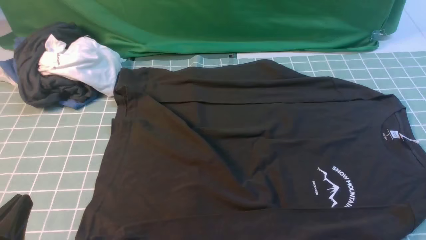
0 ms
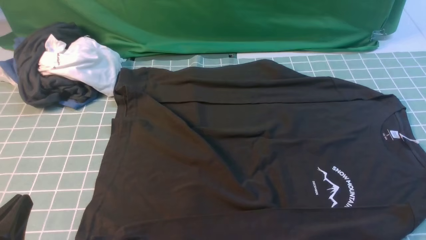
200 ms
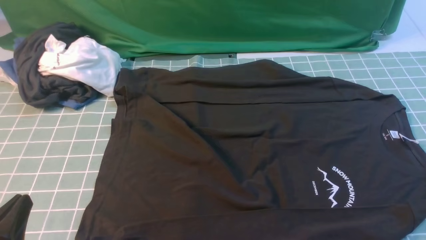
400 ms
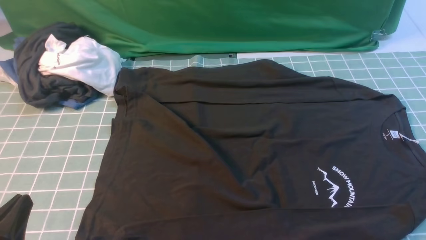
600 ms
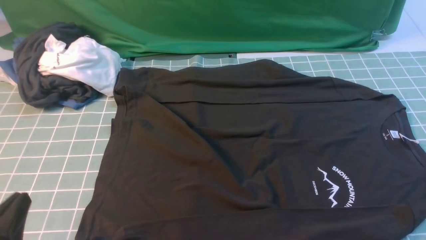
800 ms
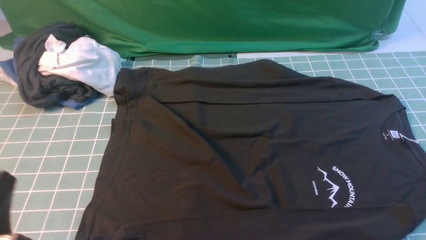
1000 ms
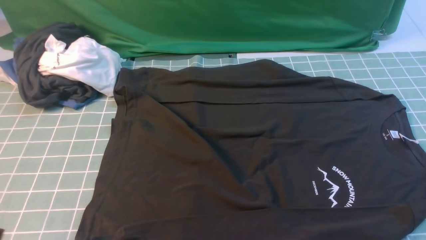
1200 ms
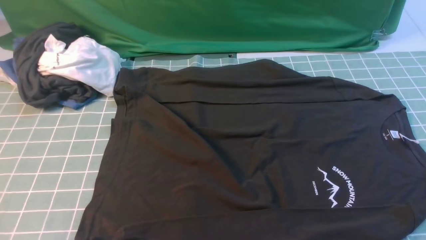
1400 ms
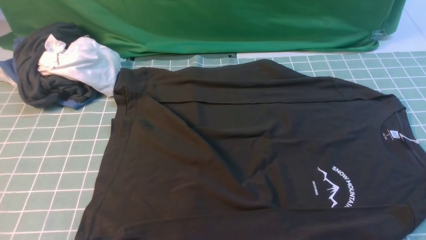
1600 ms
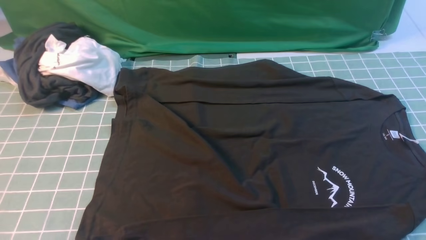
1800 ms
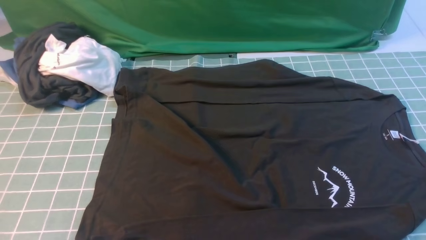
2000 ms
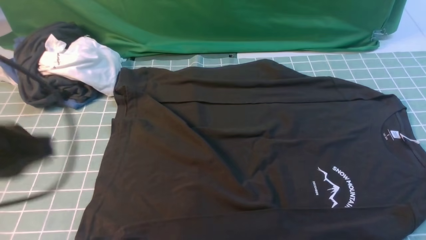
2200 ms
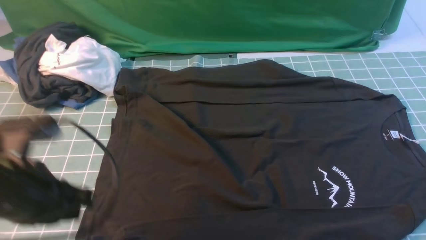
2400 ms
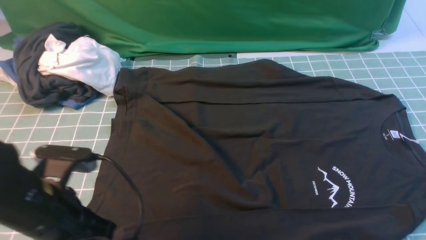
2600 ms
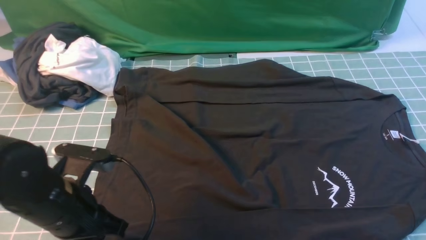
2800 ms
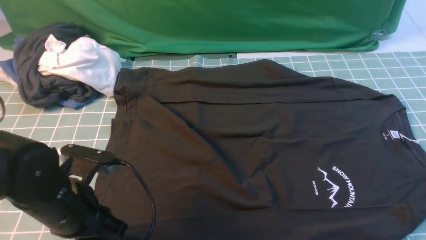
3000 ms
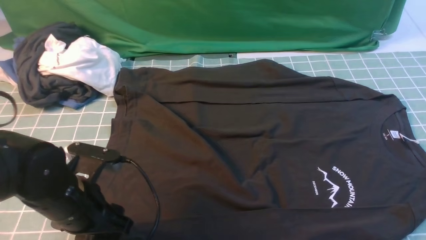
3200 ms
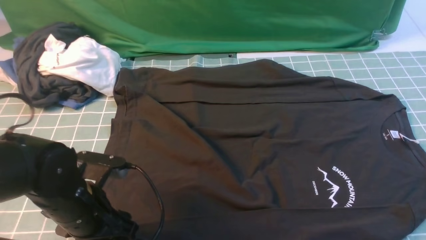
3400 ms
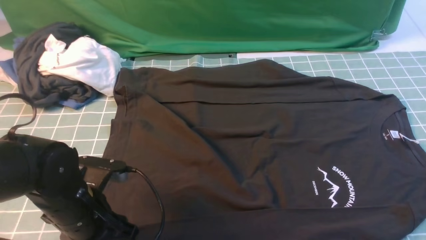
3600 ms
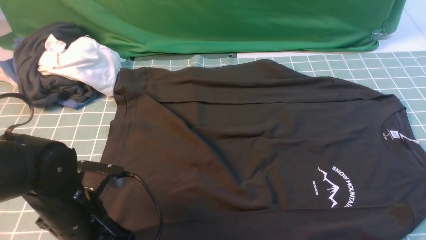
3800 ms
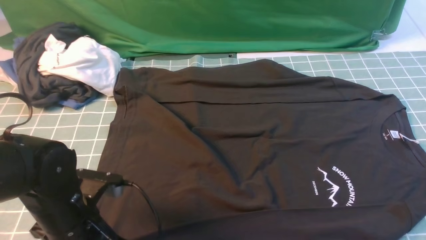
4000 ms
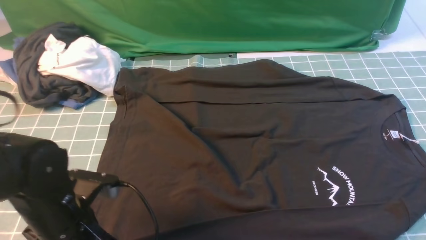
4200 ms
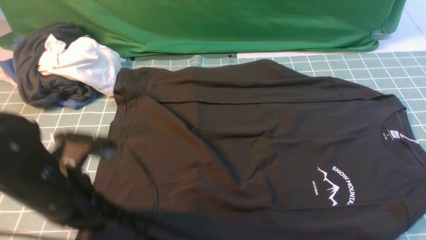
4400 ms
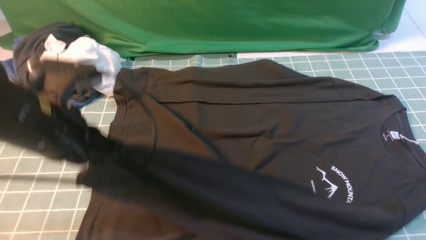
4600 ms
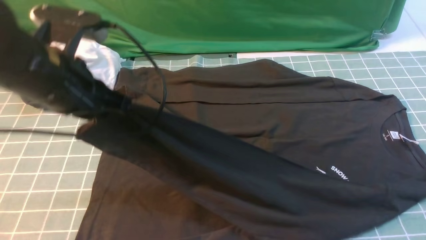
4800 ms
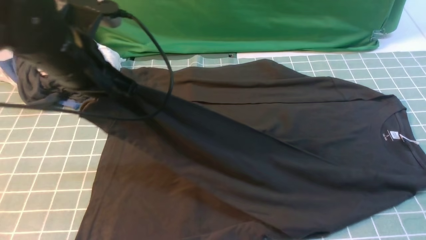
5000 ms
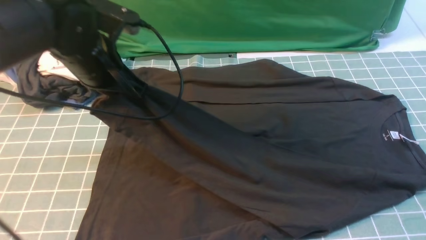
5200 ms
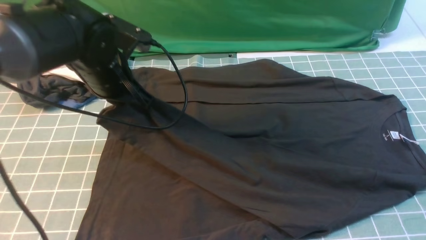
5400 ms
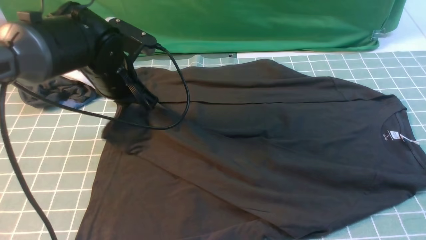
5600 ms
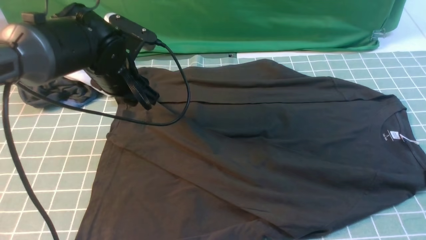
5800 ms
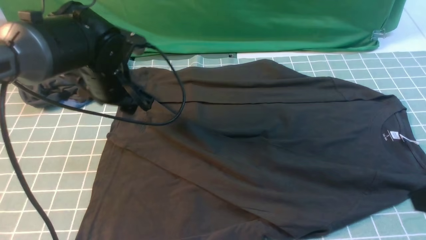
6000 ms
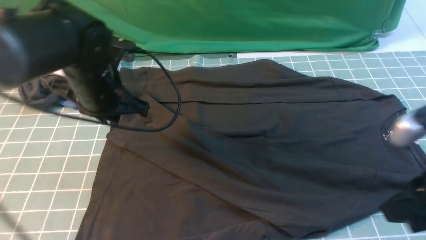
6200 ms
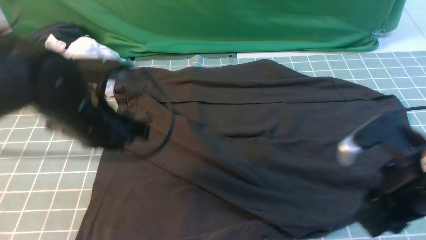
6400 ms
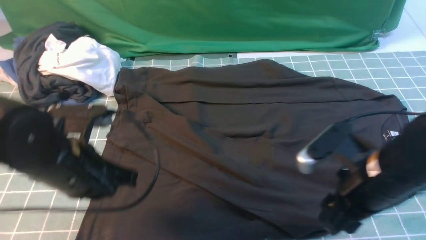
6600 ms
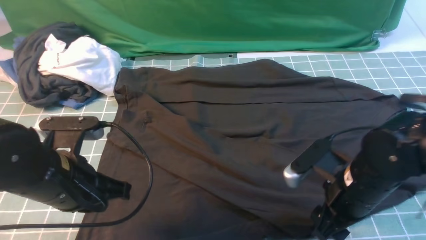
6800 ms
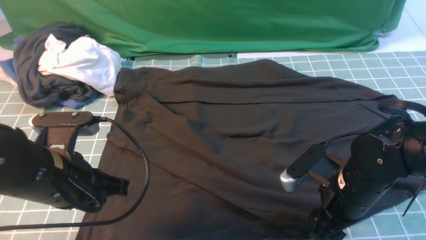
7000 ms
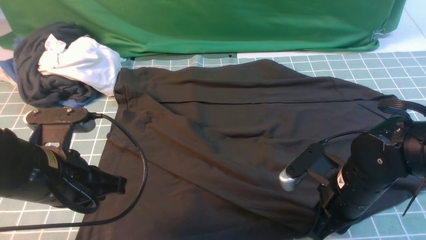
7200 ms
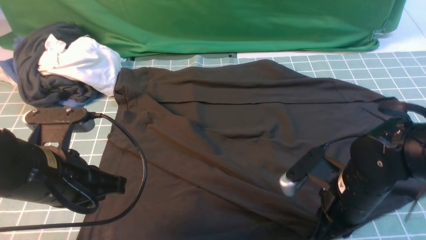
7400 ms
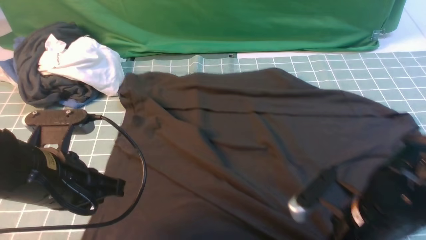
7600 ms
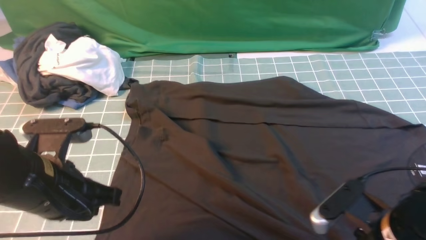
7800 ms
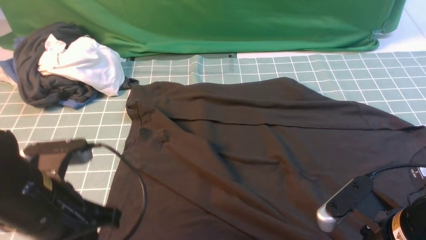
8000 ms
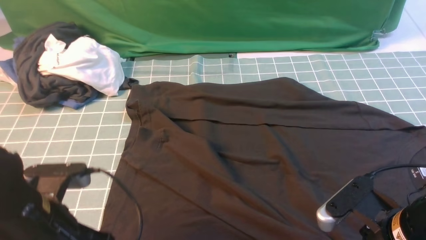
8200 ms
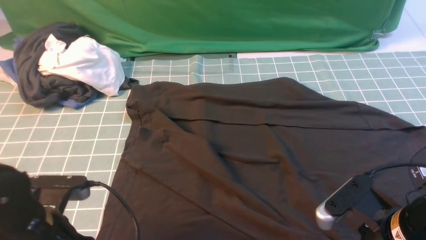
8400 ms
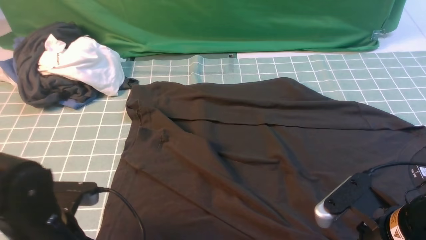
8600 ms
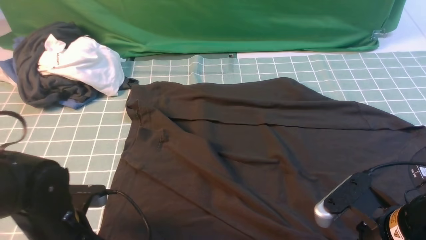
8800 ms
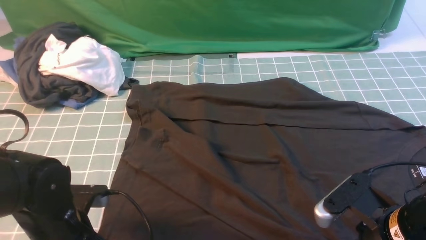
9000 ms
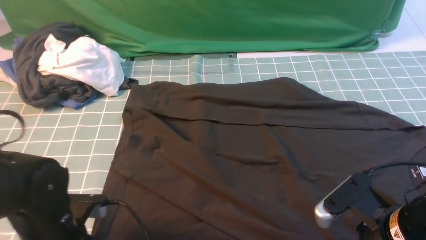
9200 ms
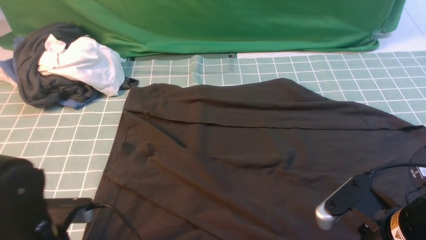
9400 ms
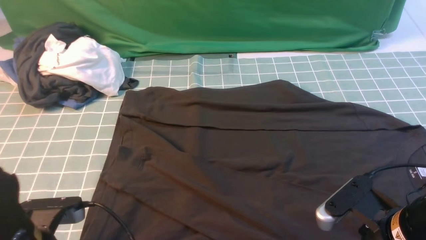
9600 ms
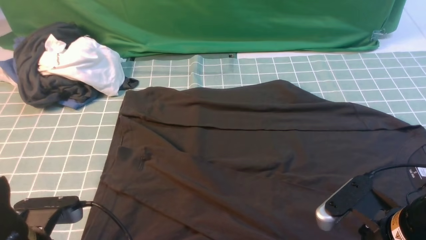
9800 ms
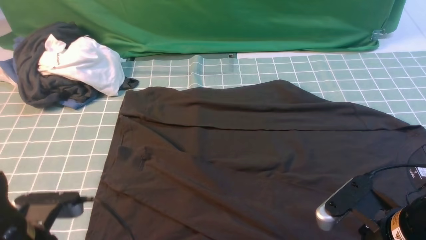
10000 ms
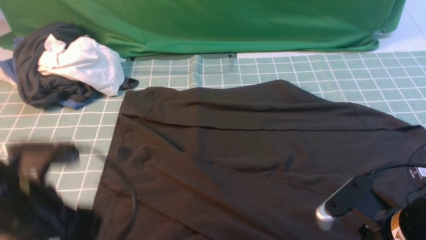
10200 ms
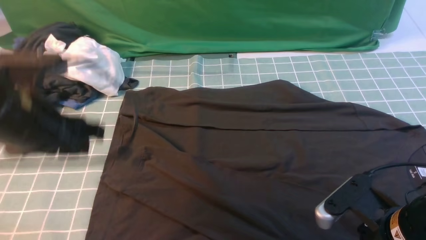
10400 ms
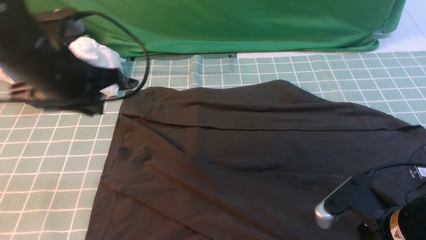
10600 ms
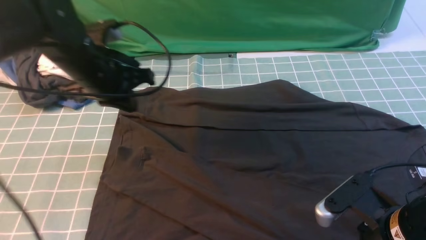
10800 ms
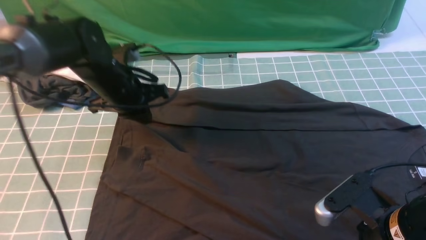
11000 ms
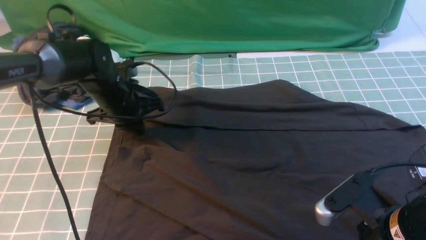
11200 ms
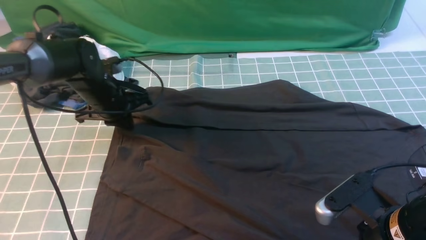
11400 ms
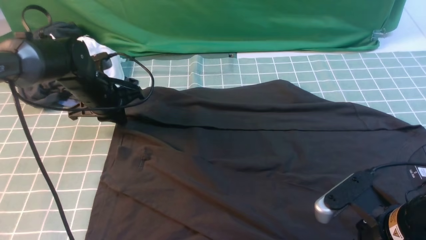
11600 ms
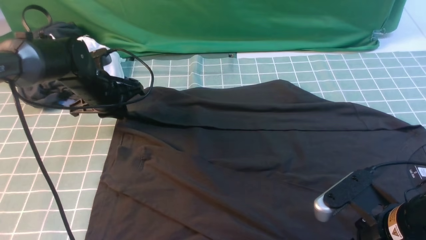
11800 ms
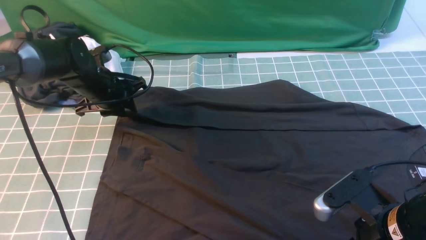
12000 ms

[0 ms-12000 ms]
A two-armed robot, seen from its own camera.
Step, 0 ms to 4200 ms: use the left arm to clamp the cuff closest to it.
Step, 4400 ms to 5600 ms: use the left arm to drag and place the cuff at the centered position on the left edge of the fabric.
0 ms to 1600 ms: The left gripper shifts about 10 cm upward.
1600 ms to 3000 ms: The left gripper goes approximately 20 cm forward, downward and to the right, and opens up.
3000 ms to 4400 ms: The left gripper heads upward, covering roughly 5 cm, and closes up.
4400 ms to 6000 ms: The right gripper changes place by roughly 5 cm. Meanwhile the left gripper heads forward, covering approximately 15 cm, and opens.
6000 ms to 7600 ms: The left gripper heads backward, covering roughly 15 cm, and closes up. The right gripper goes roughly 15 cm downward and to the left, and opens and closes again.
7600 ms to 9000 ms: The left gripper travels downward by approximately 10 cm, and opens up.
9000 ms to 10400 ms: The left gripper travels upward and forward by about 15 cm, and closes and opens again.
10400 ms to 12000 ms: The left gripper travels forward and downward by roughly 25 cm, and closes, then opens again.

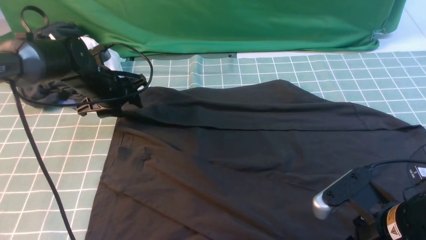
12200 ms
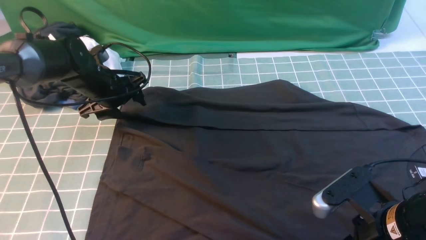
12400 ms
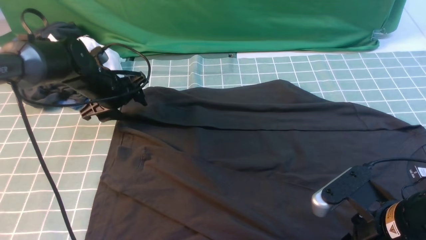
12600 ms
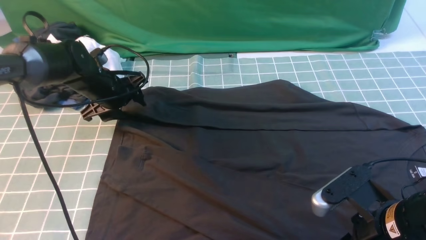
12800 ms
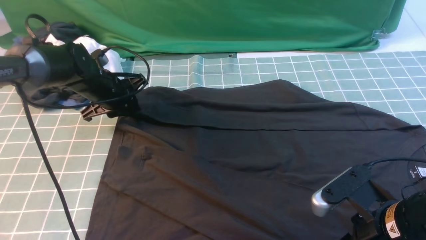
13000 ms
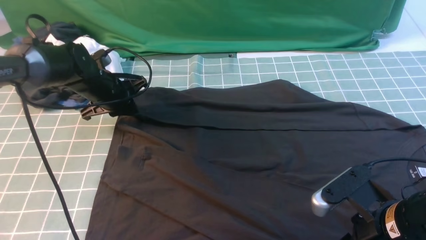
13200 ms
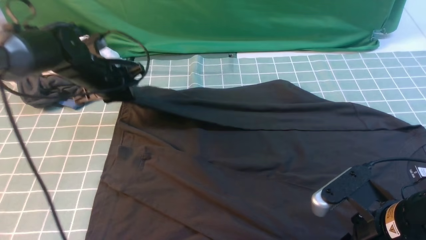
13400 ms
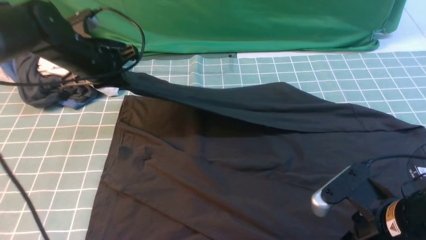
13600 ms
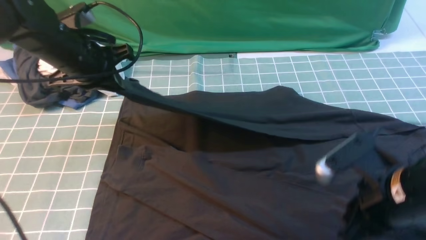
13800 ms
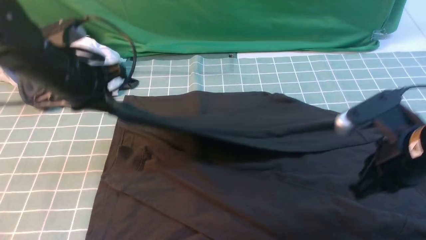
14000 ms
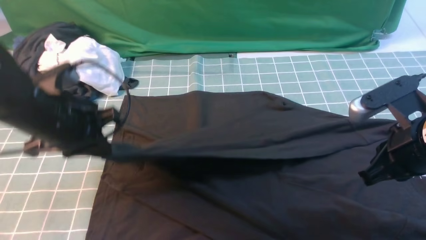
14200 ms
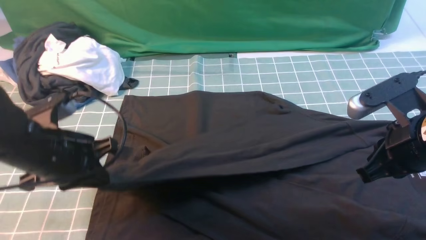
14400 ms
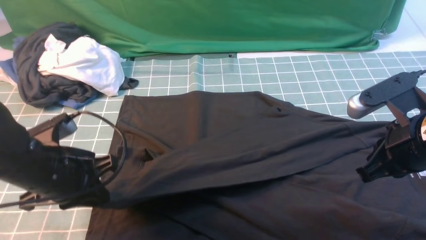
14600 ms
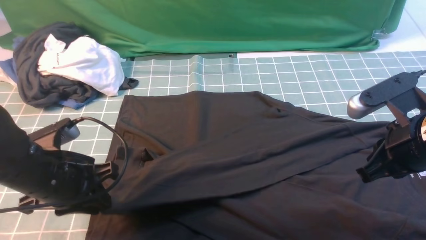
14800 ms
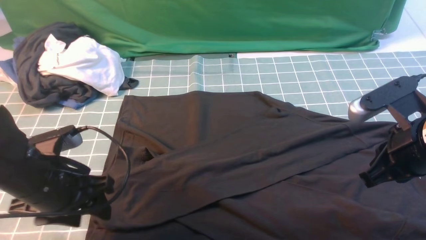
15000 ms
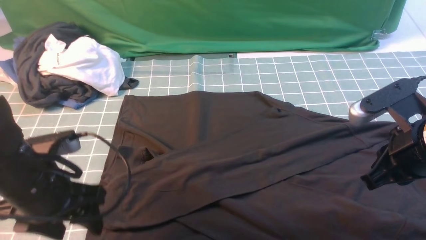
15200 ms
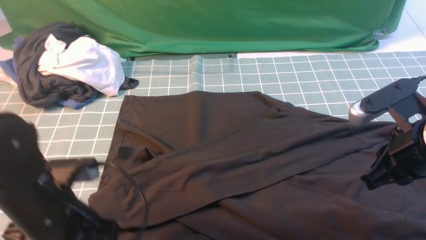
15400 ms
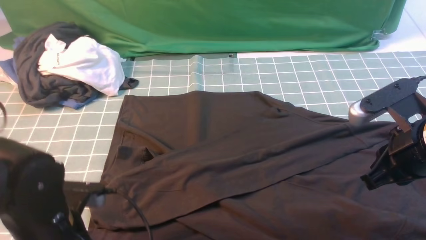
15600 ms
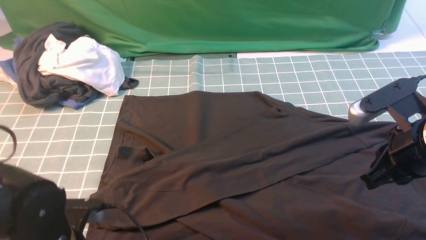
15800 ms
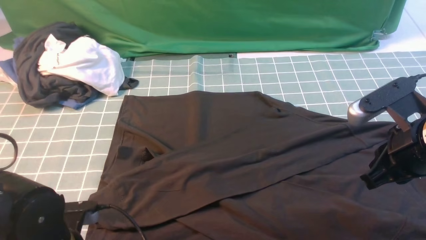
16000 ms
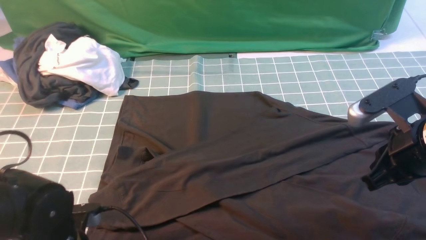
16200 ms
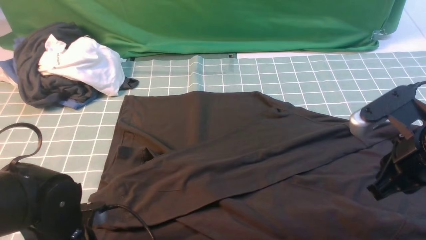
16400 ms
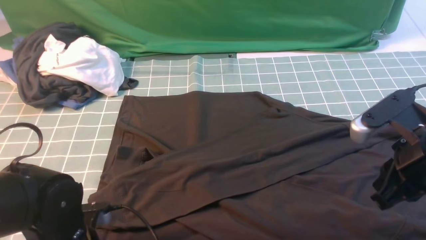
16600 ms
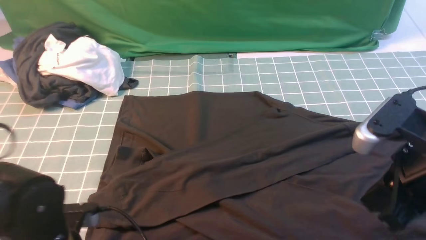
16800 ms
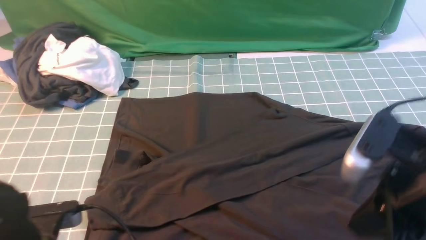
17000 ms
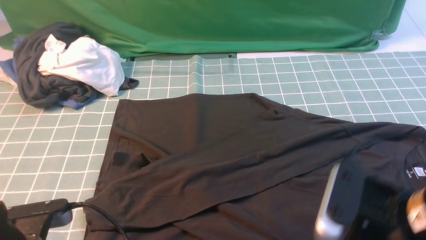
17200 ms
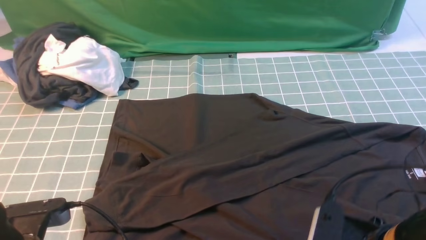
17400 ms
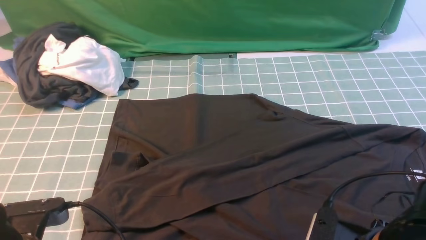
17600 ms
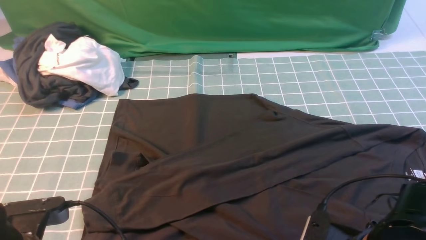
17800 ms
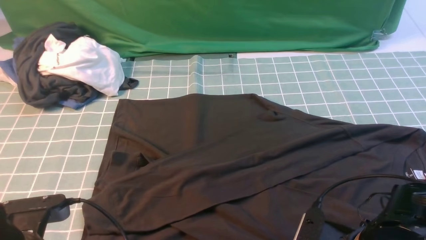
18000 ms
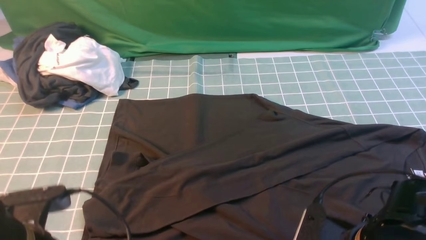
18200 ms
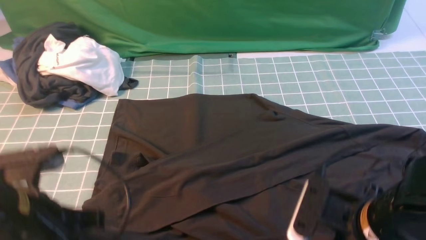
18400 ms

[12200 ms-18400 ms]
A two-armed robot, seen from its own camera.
Step, 13400 ms to 15000 ms: use the left arm to drag and drop the cuff onto the cuff closest to the left arm.
Step, 15200 ms to 18200 ms: use both arms simultaneously to clamp the lower edge of the clothing fabric.
12200 ms to 13800 ms: The left gripper moves upward and backward, roughly 10 cm, and closes its fingers. Meanwhile the right gripper moves some 5 cm.
13800 ms to 15400 ms: The left gripper shifts about 20 cm backward, and opens its fingers. Meanwhile the right gripper ends up about 5 cm from where it was.
15400 ms to 16800 ms: The right gripper moves some 5 cm; the left gripper changes place by about 5 cm, and closes up.
16800 ms to 18400 ms: The left gripper travels upward by approximately 10 cm. Meanwhile the right gripper heads downward and to the left, covering approximately 10 cm, and opens and closes again.
